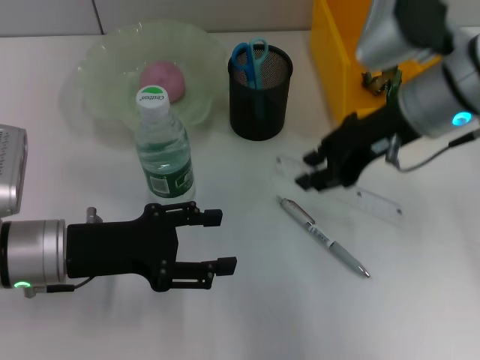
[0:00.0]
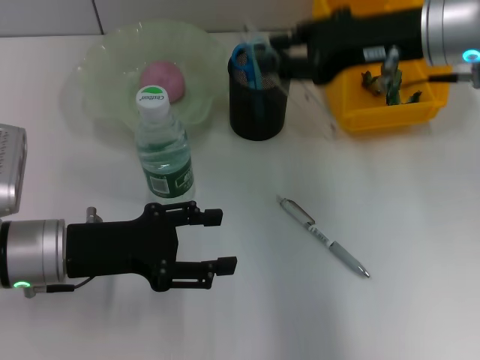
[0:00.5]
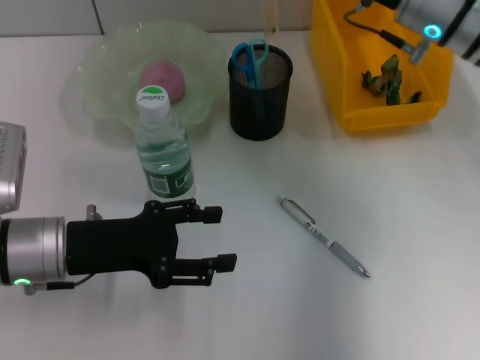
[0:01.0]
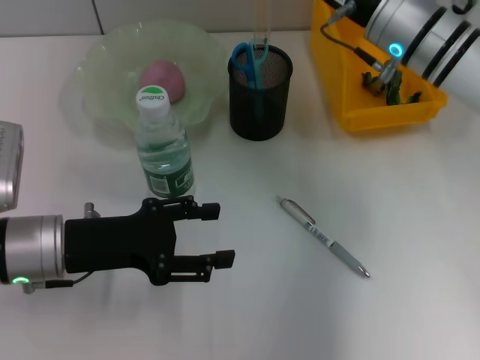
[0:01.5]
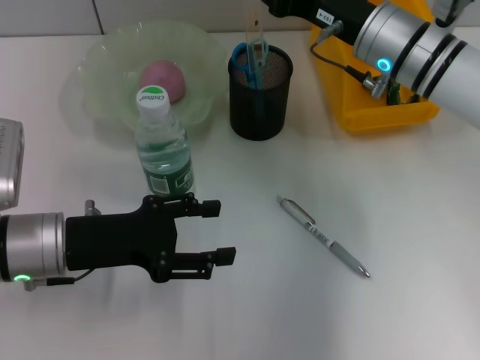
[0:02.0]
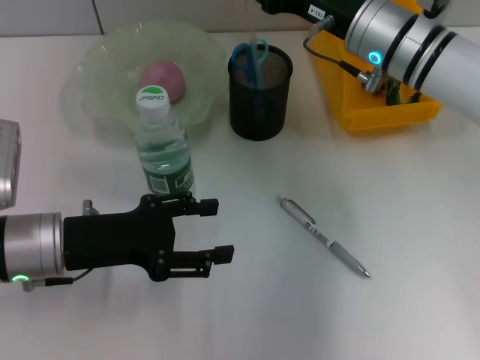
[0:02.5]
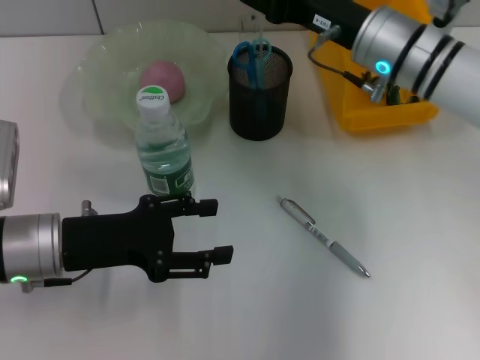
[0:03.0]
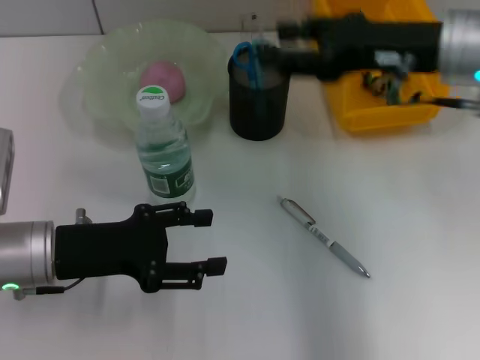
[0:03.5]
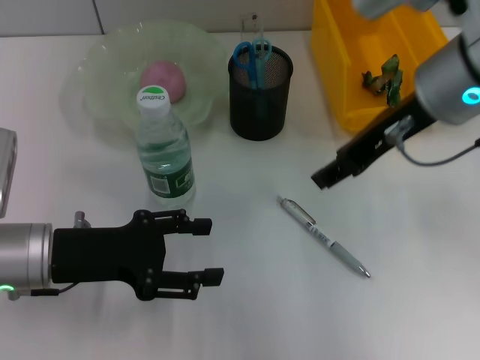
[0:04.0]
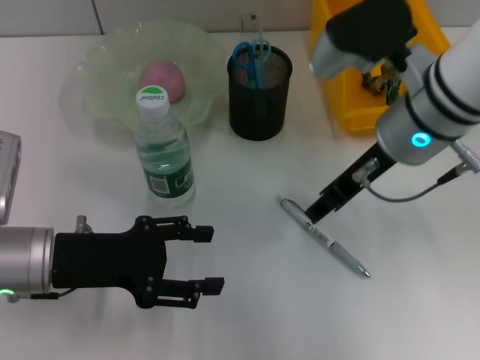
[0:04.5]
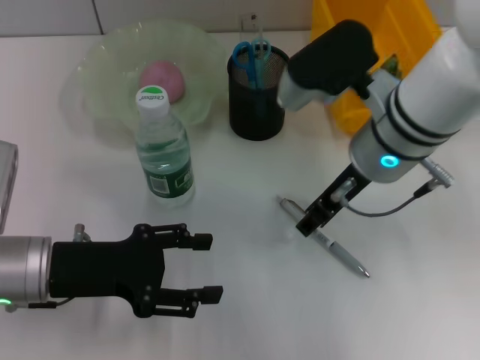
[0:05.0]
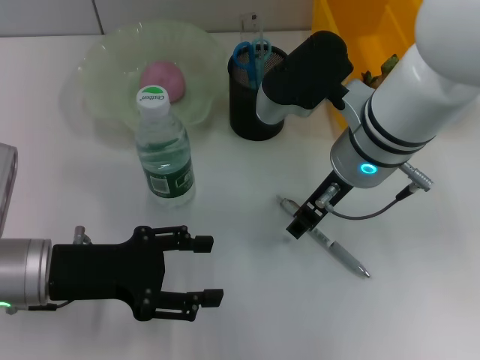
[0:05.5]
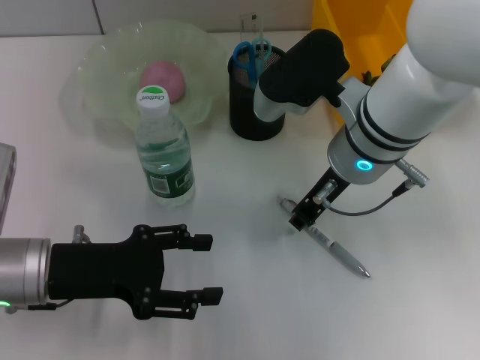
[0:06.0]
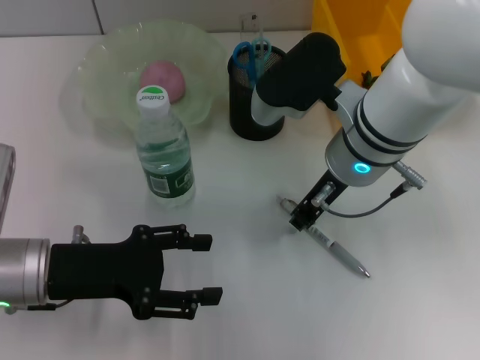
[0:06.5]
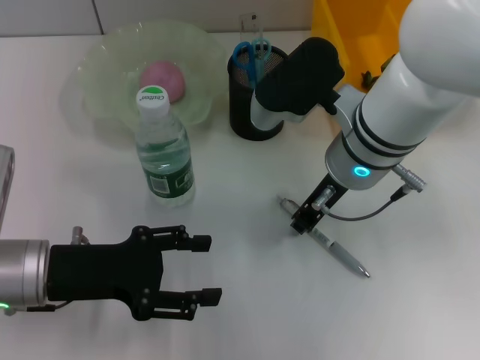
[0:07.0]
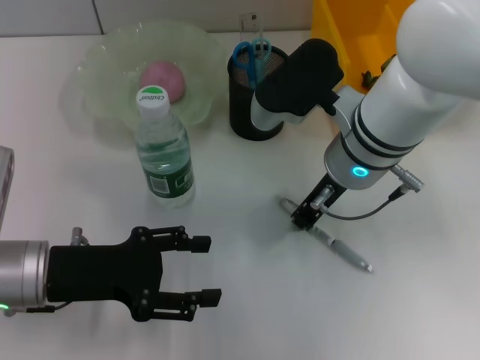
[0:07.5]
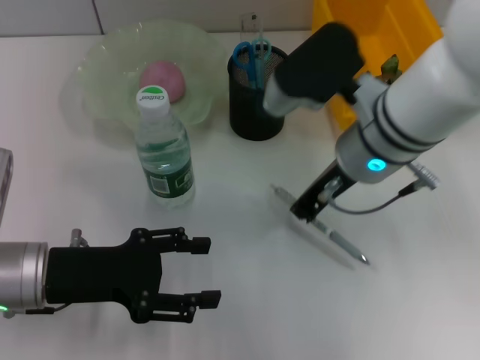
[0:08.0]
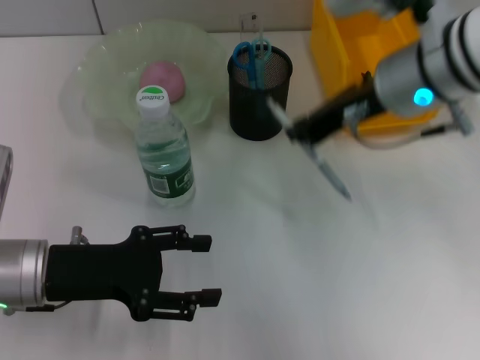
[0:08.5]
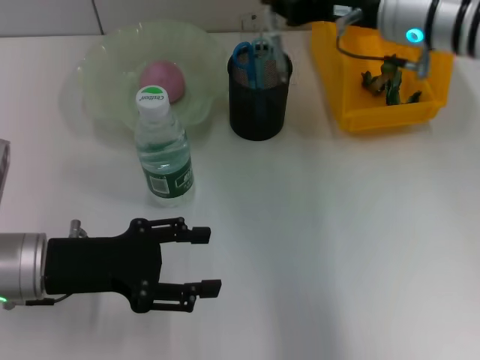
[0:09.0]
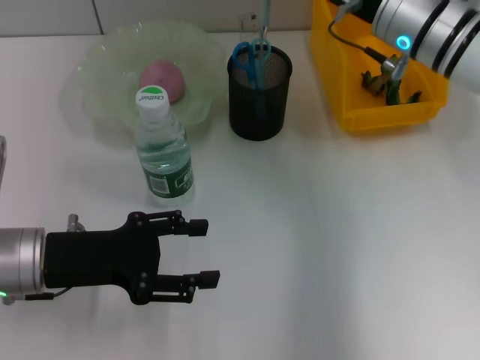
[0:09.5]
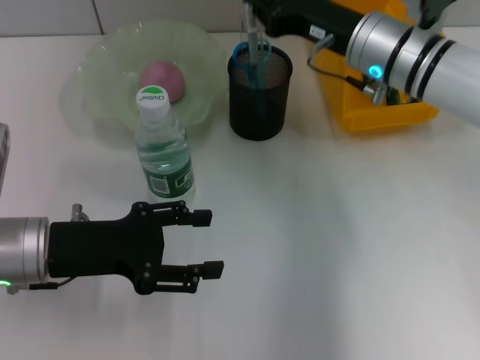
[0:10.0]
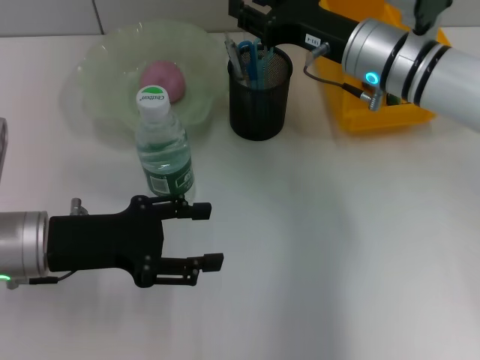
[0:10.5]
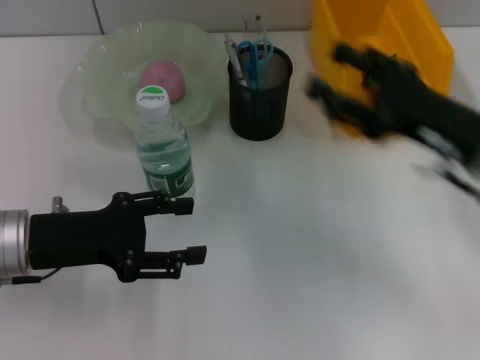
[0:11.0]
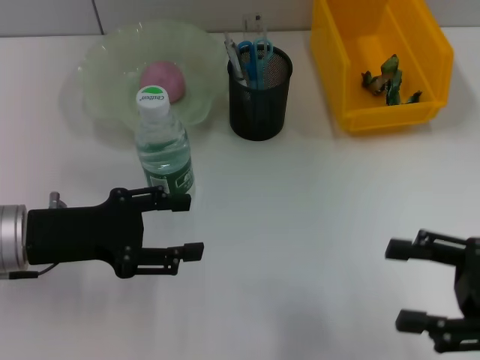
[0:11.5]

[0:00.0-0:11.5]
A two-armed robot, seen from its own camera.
Step, 0.0 to 2.5 s: Place the ruler into the pen holder with the right hand.
Step, 3.0 to 7.5 s: Grab the gray spring-action pen with the right hand.
Step, 8.0 to 10.0 s: Place the gray spring-action pen into the pen holder with the right hand.
0.0 to 2.0 s: The right gripper travels downward and forward by approximately 10 cm.
2.0 to 4.0 s: The right gripper shifts some 10 cm upward and backward.
4.0 to 6.0 s: The right gripper shifts about 10 cm downward and to the left.
6.0 to 7.5 s: The two grippers keep their place.
7.5 to 9.5 s: The right gripper goes about 10 cm to the right and forward.
9.5 to 11.5 s: The right gripper travels backward and to the right by some 25 cm, and opens up.

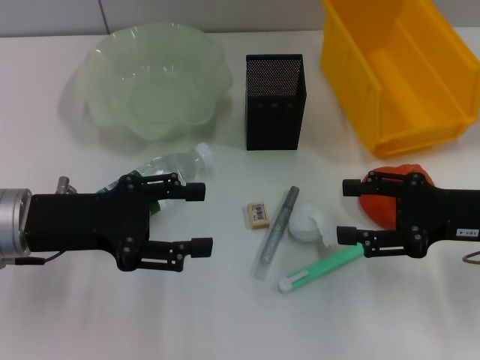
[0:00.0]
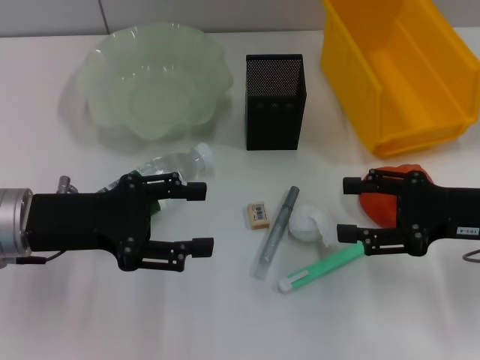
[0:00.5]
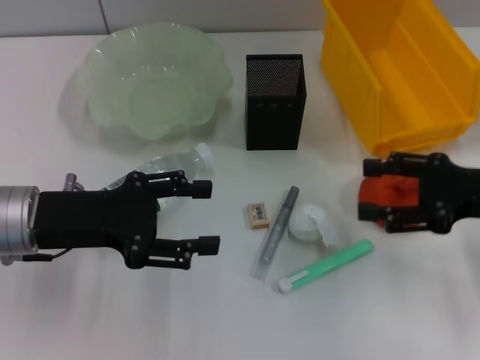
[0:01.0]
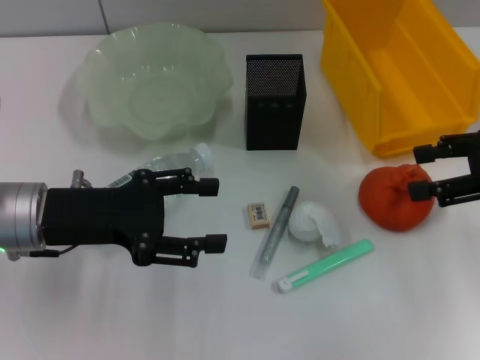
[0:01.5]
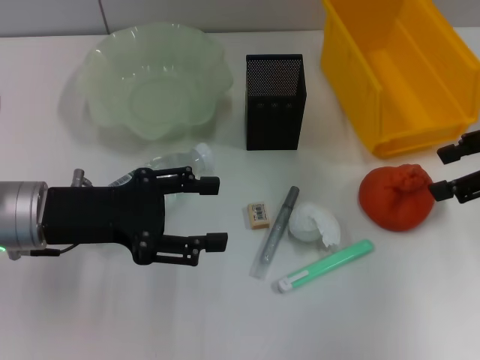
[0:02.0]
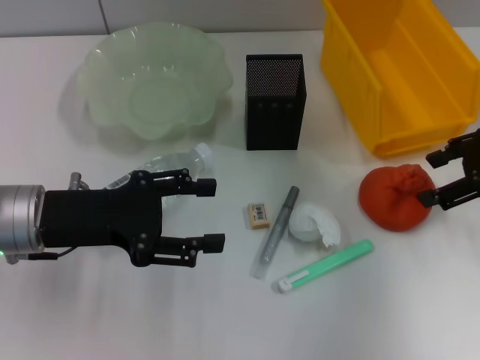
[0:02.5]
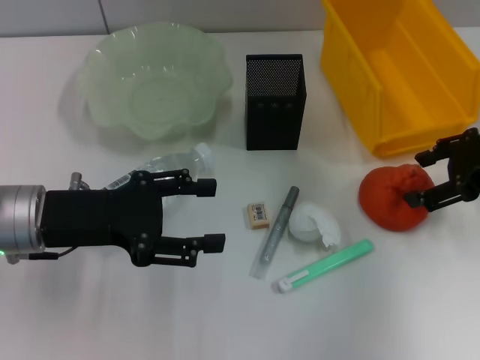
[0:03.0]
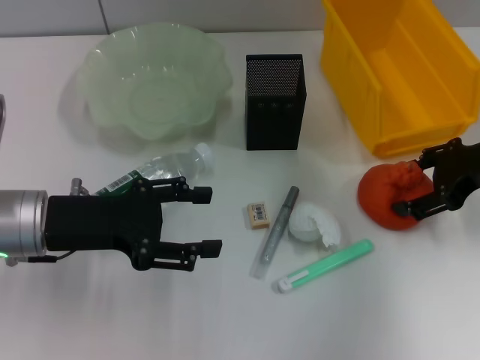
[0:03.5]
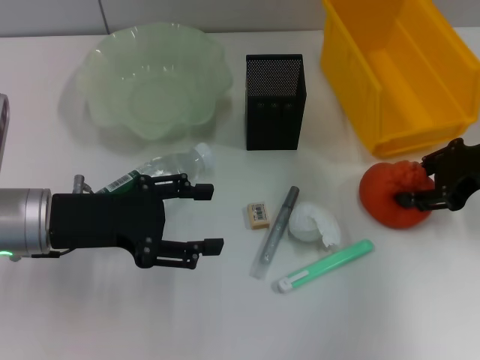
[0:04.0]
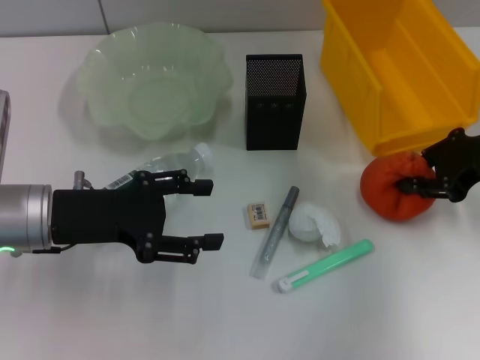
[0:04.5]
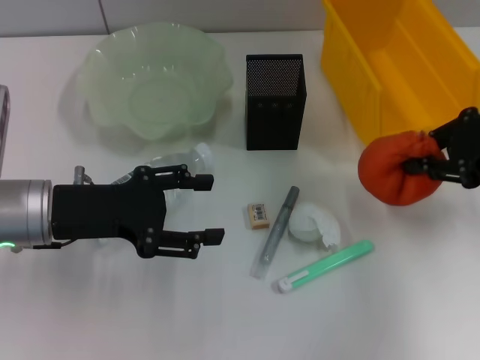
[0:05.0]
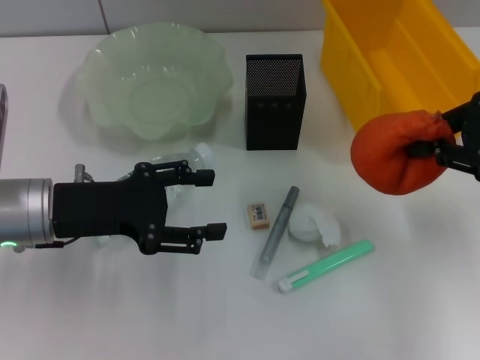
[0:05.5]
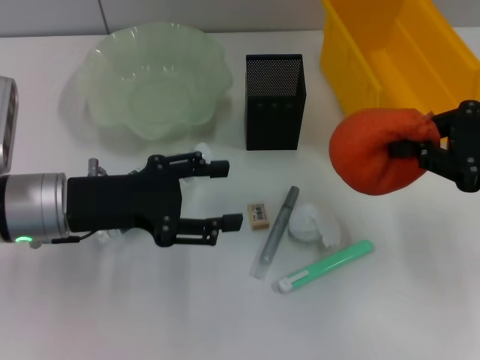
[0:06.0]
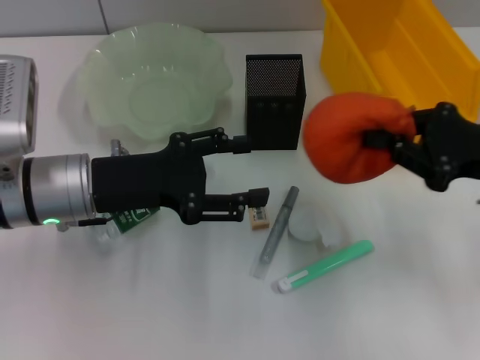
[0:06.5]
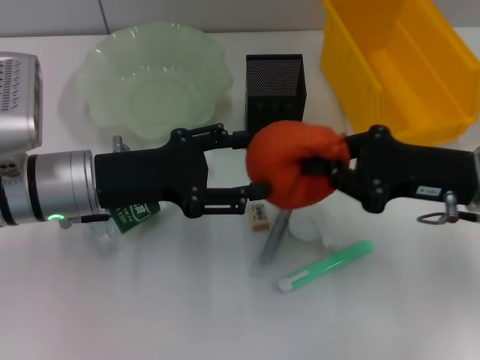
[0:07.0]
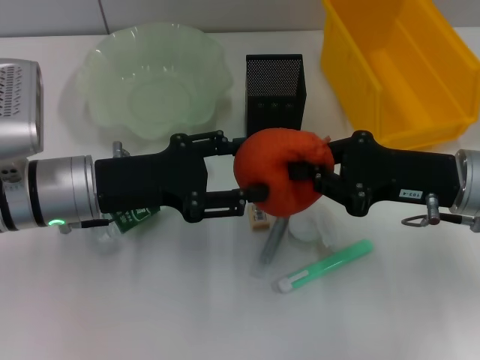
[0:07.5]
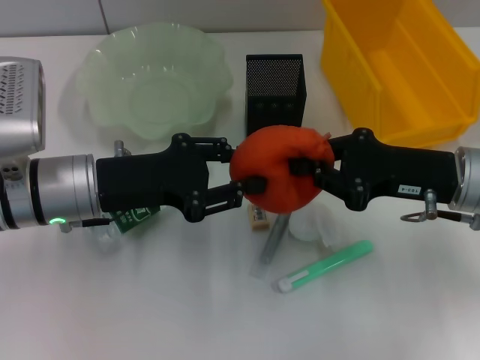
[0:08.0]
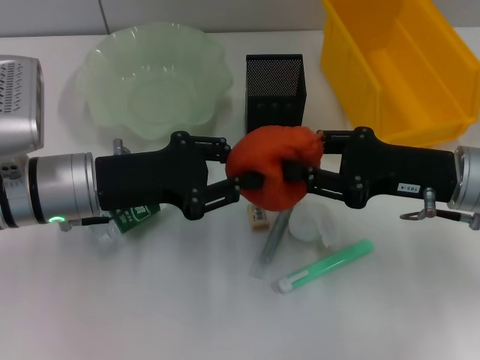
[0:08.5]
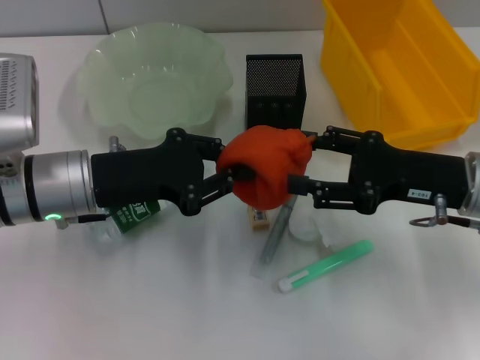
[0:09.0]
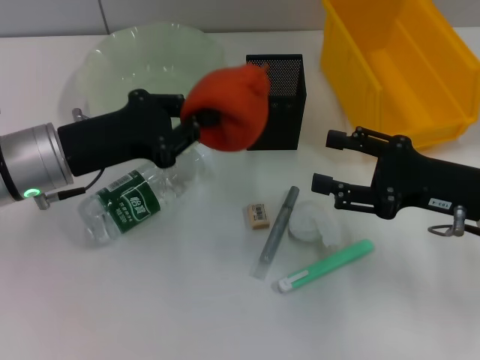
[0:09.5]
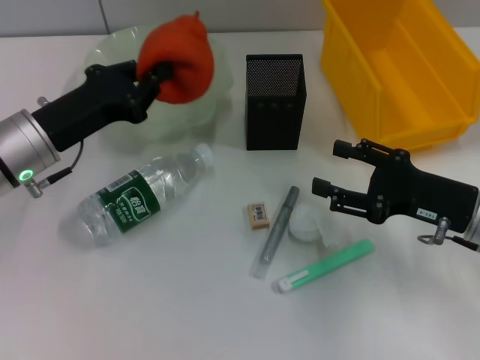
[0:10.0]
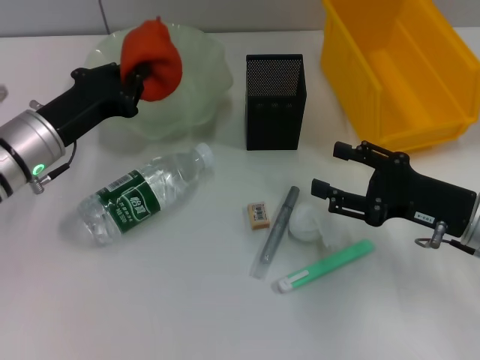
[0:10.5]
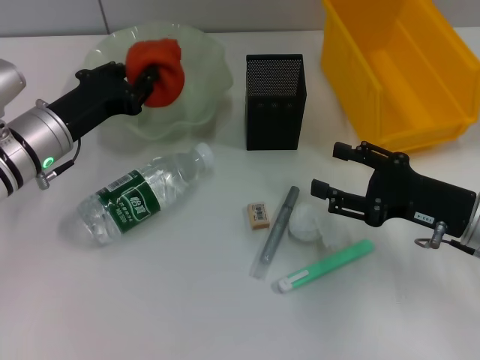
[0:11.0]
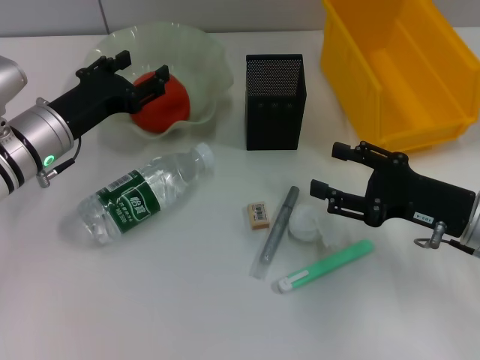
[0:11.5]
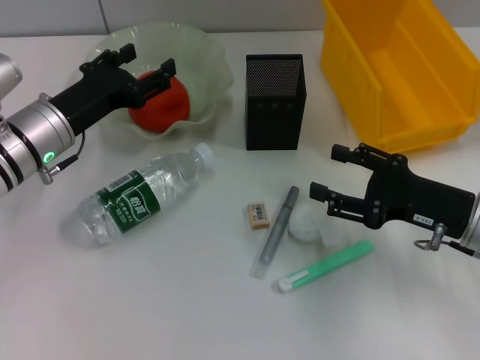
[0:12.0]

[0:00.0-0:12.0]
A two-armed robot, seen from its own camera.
Step, 0.0 to 4.0 s: Grab the orange with the right hand.
Step, 4.5 to 9.0 s: Pass the orange from the right hand to the left hand.
Step, 9.5 to 11.0 s: Place the orange into the fruit bowl with the left hand.
0.0 to 2.0 s: The right gripper heads upward and forward, covering approximately 10 cm.
2.0 to 4.0 s: The right gripper is displaced downward by about 5 cm, and closes up.
4.0 to 6.0 s: The right gripper moves approximately 5 cm, and closes up.
6.0 to 8.0 s: The right gripper is displaced to the left and downward by approximately 10 cm. Meanwhile the left gripper closes up.
8.0 to 10.0 s: The left gripper ends up approximately 5 cm from where it was, and closes up. Meanwhile the right gripper changes place by approximately 5 cm, and opens its fingers.
10.0 to 12.0 s: The left gripper opens its fingers.

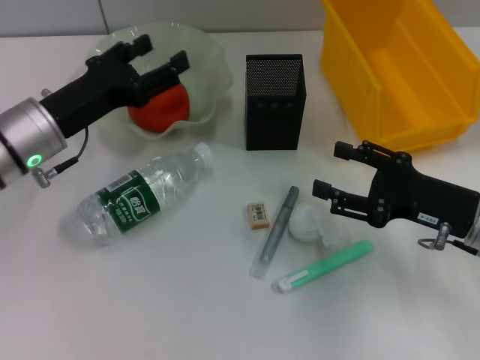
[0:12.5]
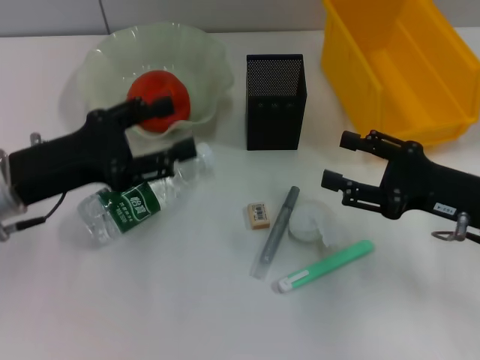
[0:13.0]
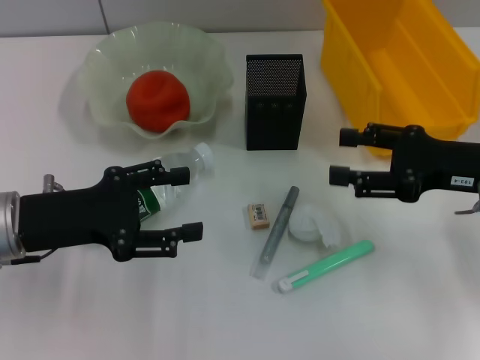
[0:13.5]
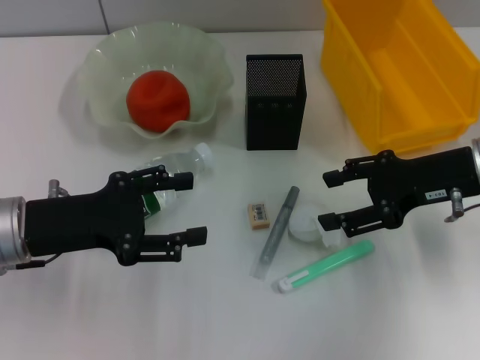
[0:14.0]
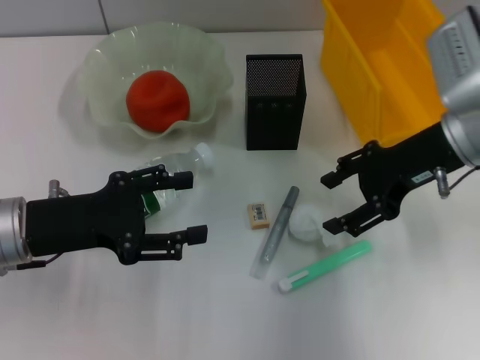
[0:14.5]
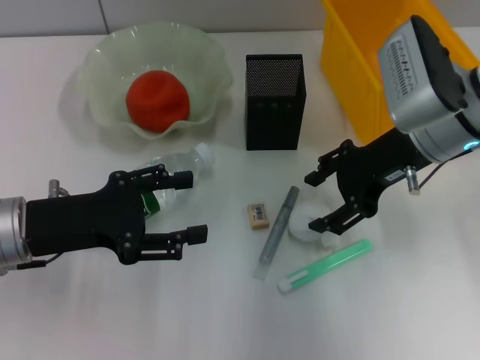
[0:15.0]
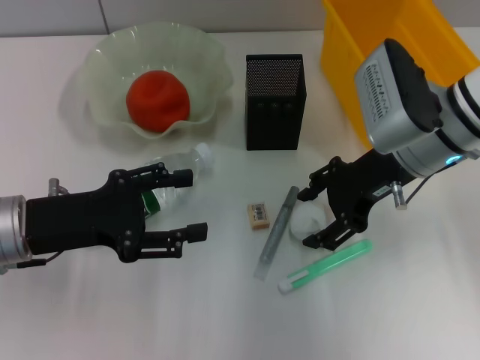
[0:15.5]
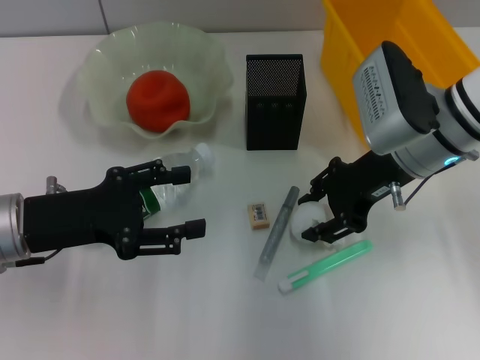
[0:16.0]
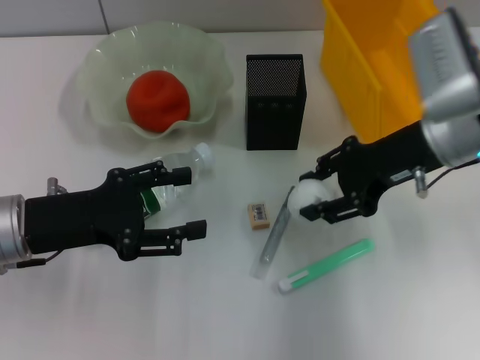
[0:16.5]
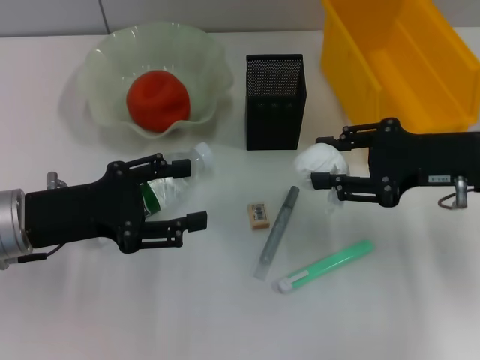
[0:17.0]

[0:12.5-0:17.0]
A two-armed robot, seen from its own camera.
Step, 12.5 to 16.0 s: Grab the paper ball with the right hand.
12.5 to 14.5 s: The left gripper is displaced backward by some 10 cm; the right gripper is displaced upward and forward by approximately 15 cm.
14.5 to 17.0 s: The right gripper changes place by approximately 5 cm.
